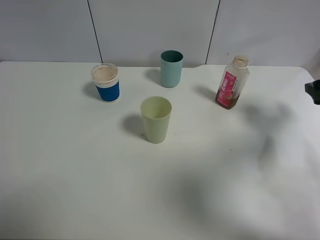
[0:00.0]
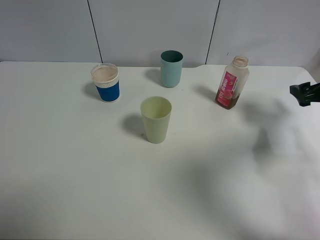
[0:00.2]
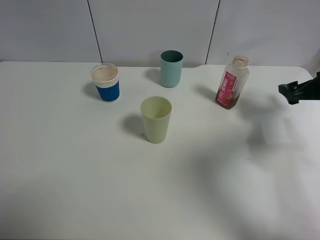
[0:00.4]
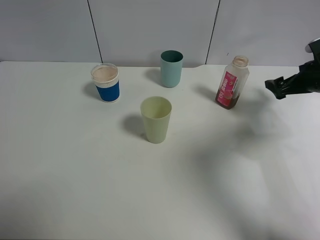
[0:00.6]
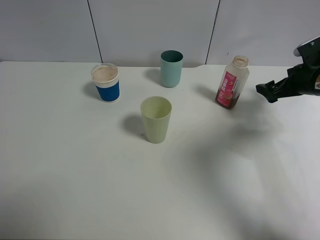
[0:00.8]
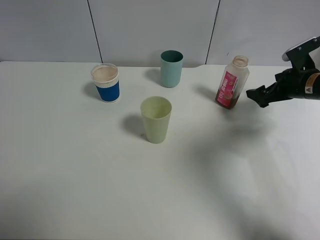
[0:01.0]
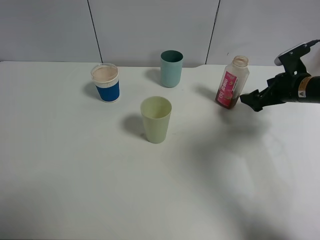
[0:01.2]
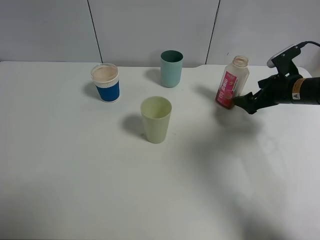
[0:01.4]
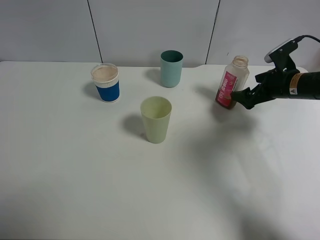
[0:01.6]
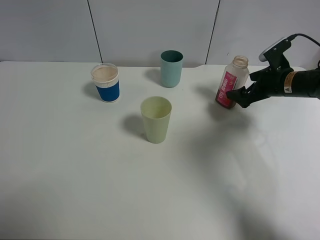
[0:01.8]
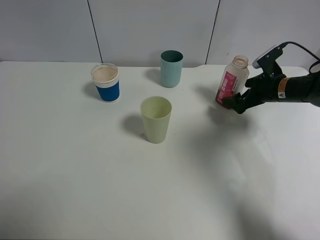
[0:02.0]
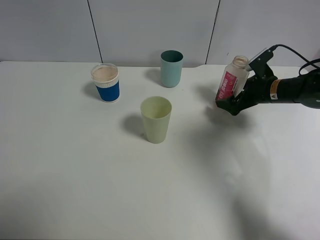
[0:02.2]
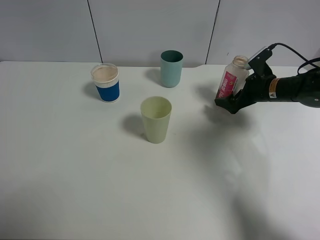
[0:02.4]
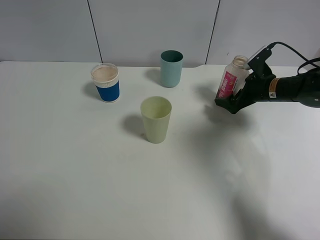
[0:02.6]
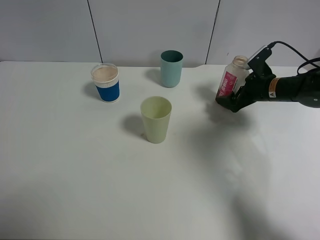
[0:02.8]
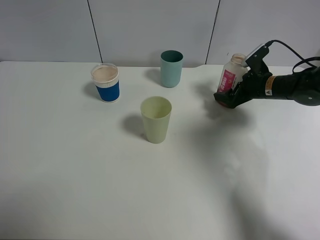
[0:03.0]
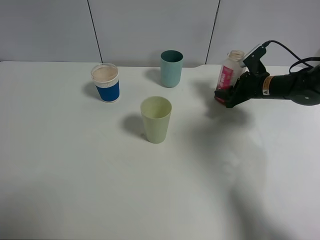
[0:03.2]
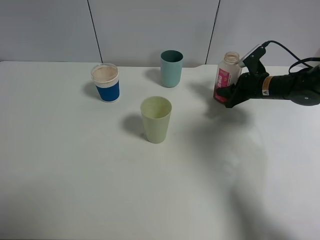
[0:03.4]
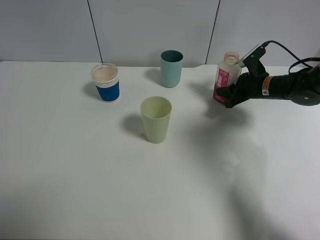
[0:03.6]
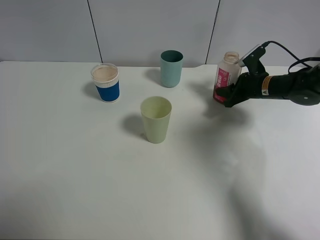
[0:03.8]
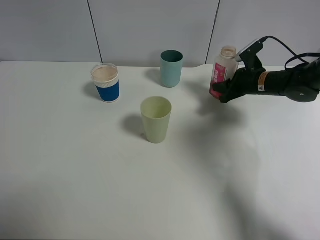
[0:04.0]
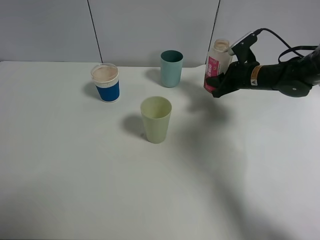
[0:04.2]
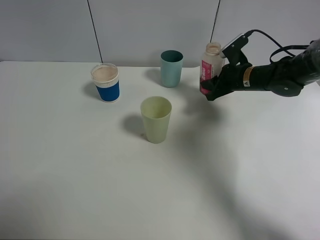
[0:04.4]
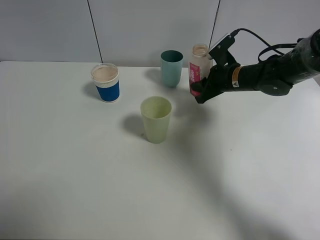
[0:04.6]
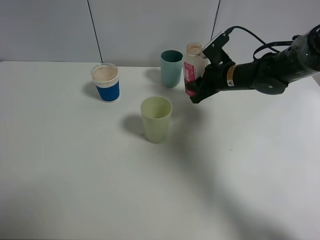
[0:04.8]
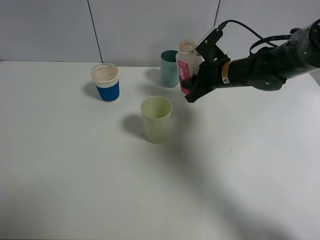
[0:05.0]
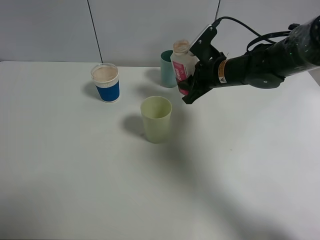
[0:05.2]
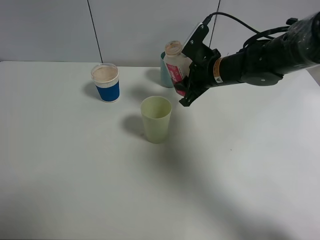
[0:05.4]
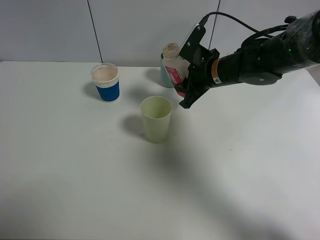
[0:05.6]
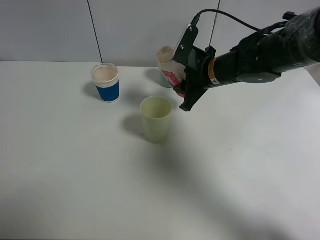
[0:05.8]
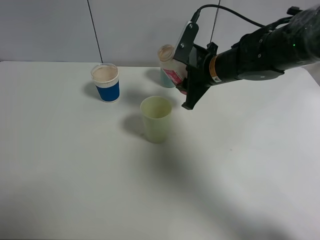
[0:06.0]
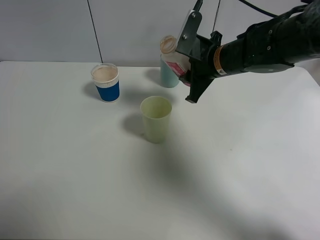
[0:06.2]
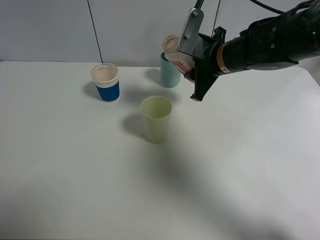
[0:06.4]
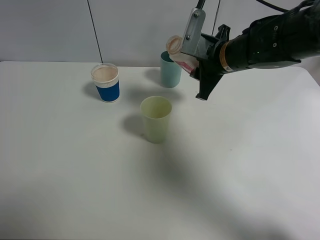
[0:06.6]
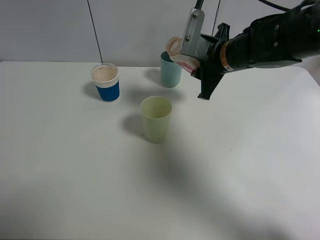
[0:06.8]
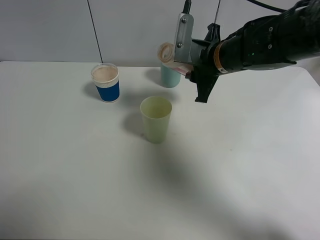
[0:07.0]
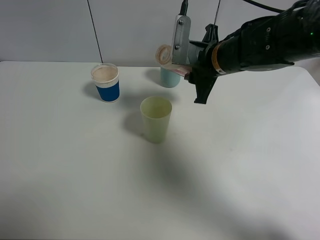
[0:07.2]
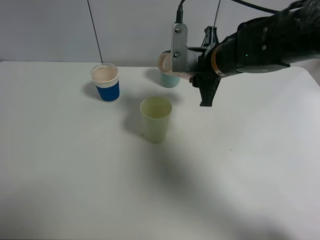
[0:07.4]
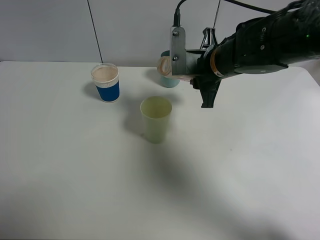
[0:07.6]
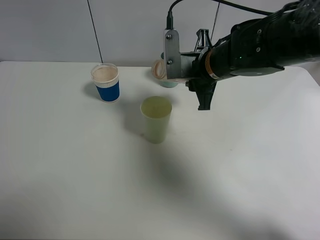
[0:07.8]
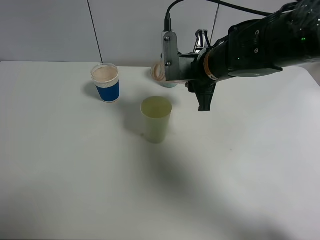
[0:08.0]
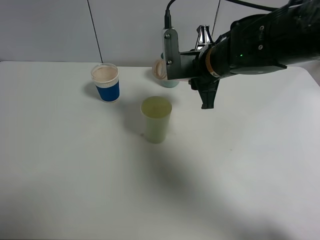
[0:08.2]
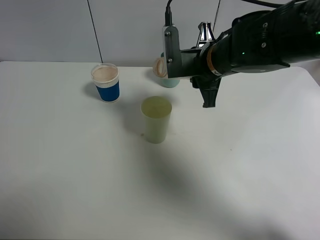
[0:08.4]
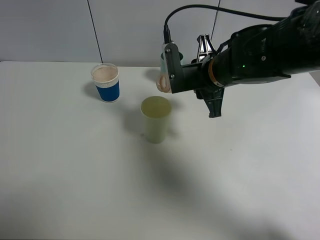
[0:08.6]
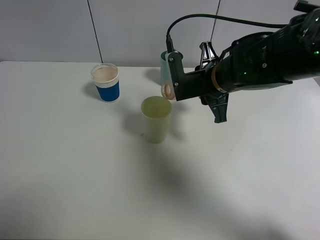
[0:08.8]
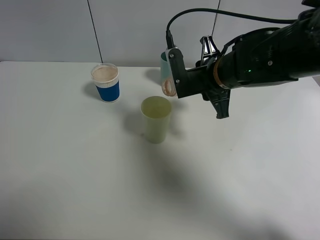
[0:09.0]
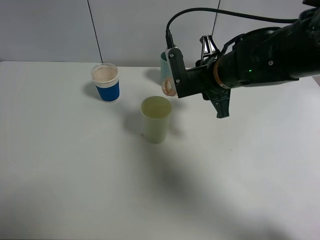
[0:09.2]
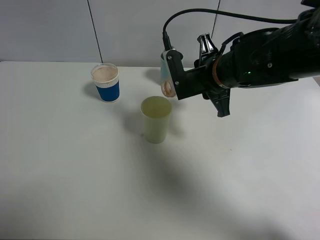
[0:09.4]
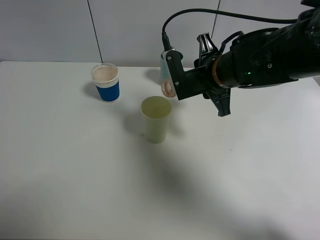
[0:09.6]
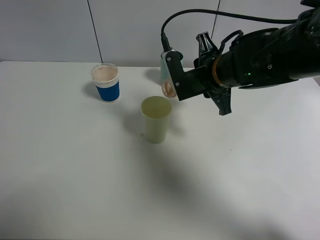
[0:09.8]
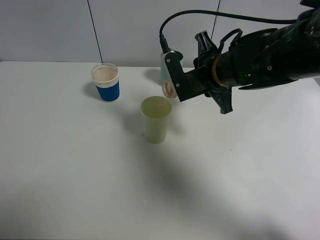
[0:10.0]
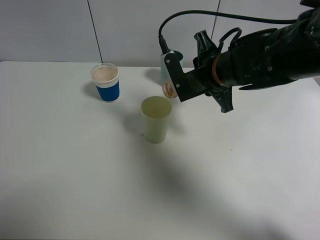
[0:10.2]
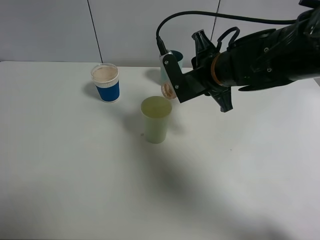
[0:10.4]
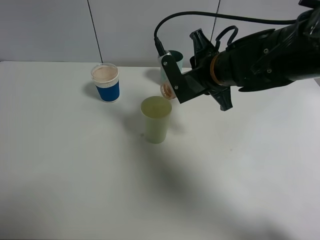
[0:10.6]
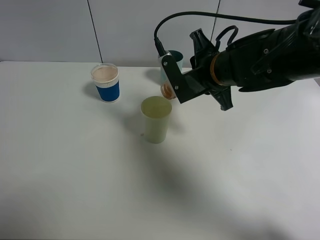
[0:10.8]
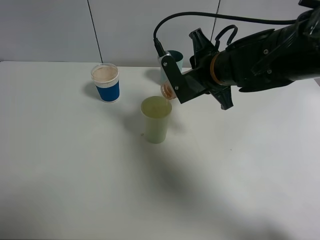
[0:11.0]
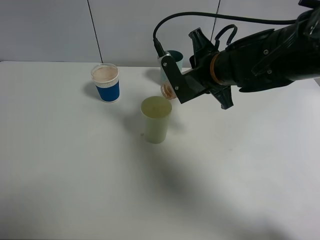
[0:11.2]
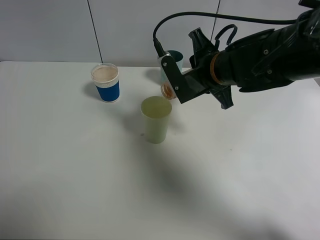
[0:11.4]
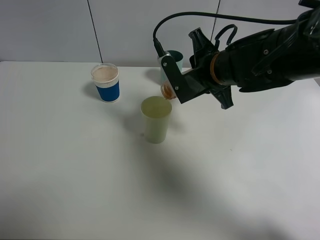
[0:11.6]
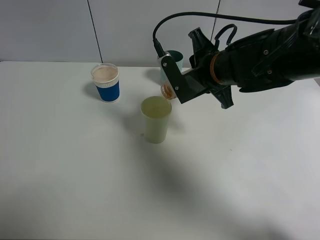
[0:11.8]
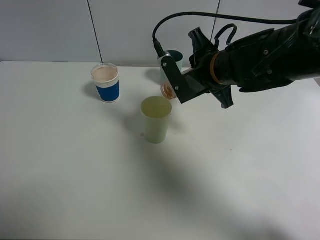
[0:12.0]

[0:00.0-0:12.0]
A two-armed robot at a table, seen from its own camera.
Task of the whole recording: use a clamp to hold the bottle of the drink, pour the beverage into a random cup, then clamp the cup containing the drink and pour the drink into another random cup.
Step, 0:00.0 to 0:04.4: Pick up the drink bottle with right gripper.
0:00.0 to 0:01.6: The right gripper goes roughly 15 cm to the left, forward and downward.
0:01.6 to 0:03.0: The right gripper ends up about 5 cm from where it was, and closes.
0:03.0 to 0:04.4: The right gripper is displaced to the left by approximately 5 cm, and closes its fingers.
0:04.4 to 0:06.0: The right gripper is displaced to the left, upward and backward by approximately 10 cm.
0:07.6 to 0:09.0: The grippers move only a little.
0:09.0 to 0:10.4: The grippers make only small movements.
0:10.4 to 0:12.0: Both grippers stay about where they are.

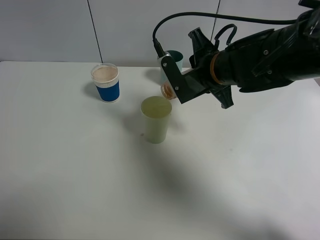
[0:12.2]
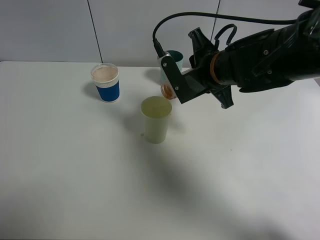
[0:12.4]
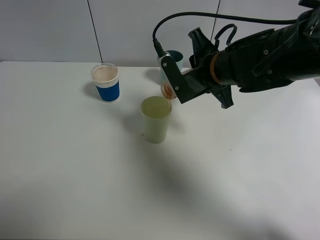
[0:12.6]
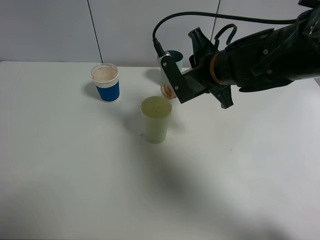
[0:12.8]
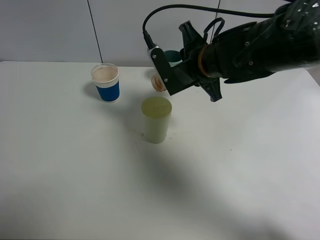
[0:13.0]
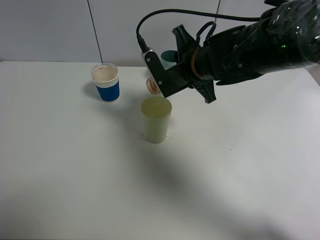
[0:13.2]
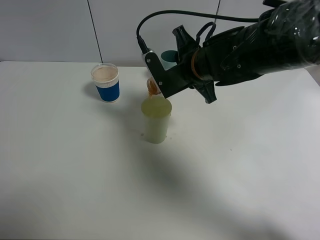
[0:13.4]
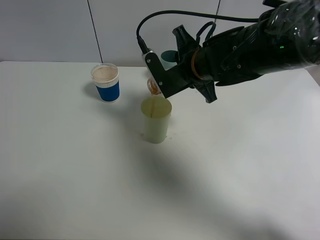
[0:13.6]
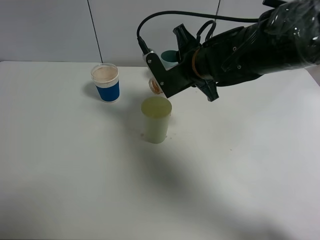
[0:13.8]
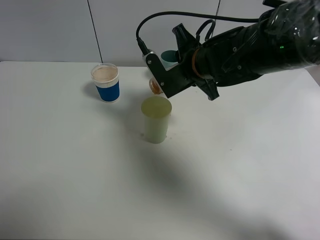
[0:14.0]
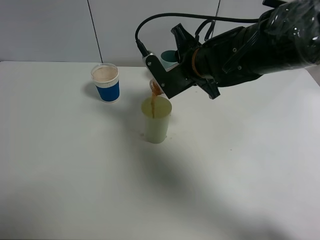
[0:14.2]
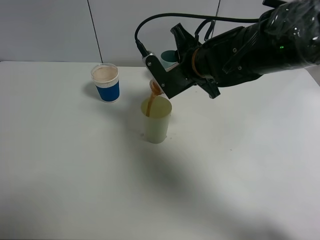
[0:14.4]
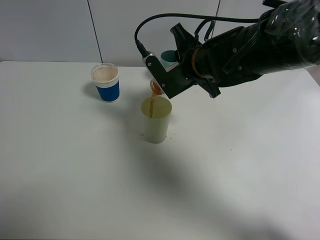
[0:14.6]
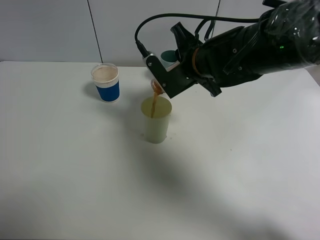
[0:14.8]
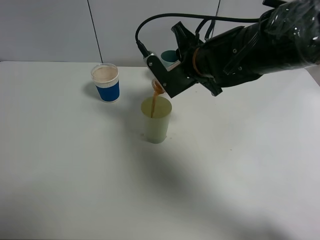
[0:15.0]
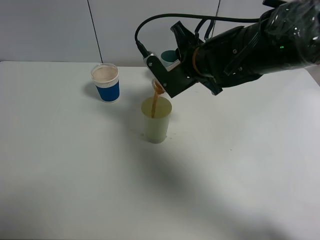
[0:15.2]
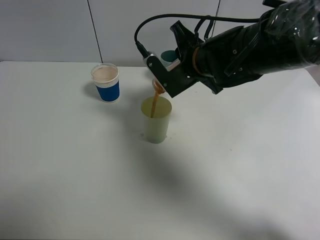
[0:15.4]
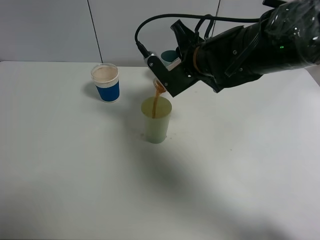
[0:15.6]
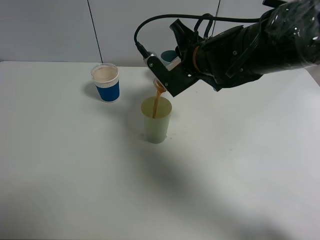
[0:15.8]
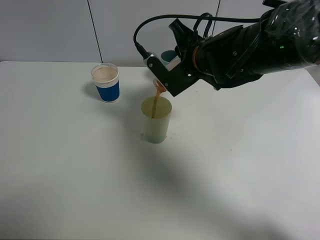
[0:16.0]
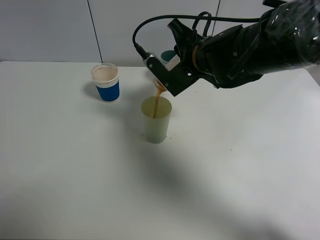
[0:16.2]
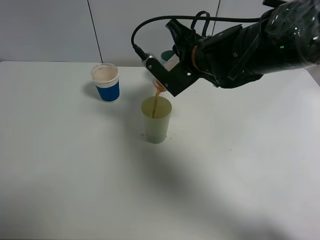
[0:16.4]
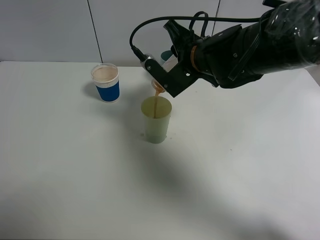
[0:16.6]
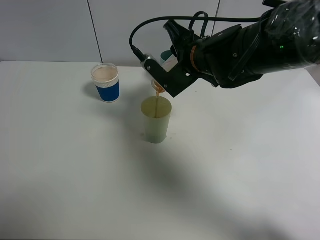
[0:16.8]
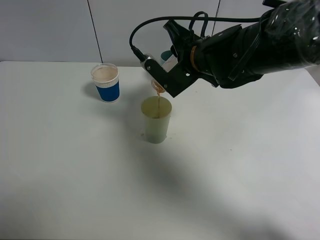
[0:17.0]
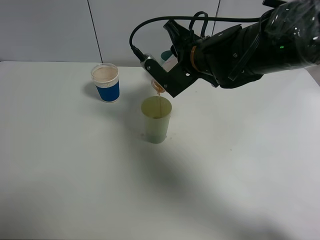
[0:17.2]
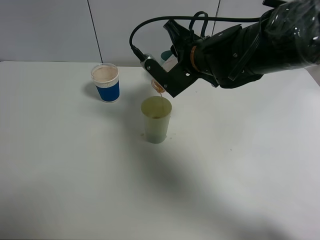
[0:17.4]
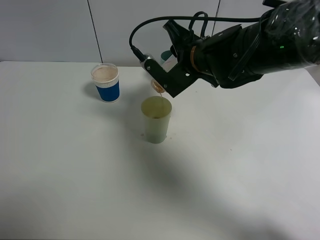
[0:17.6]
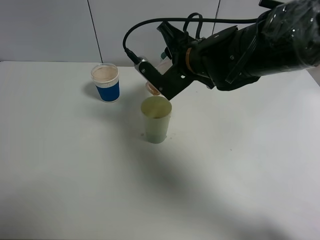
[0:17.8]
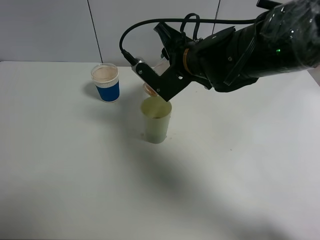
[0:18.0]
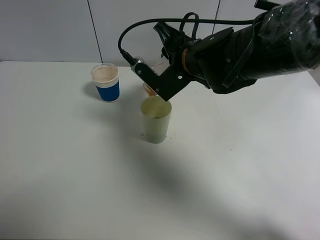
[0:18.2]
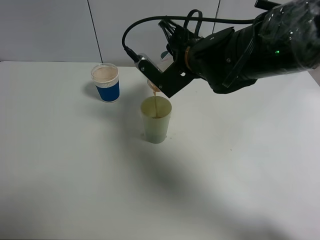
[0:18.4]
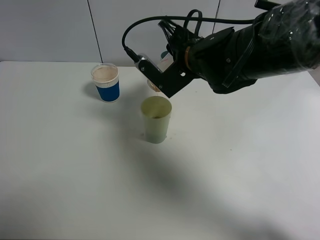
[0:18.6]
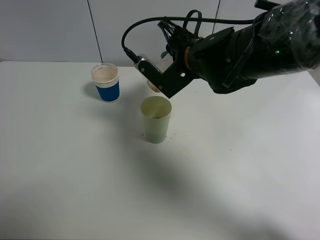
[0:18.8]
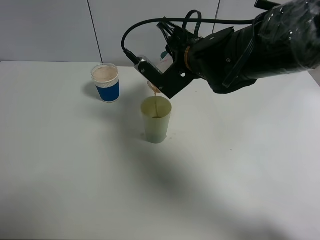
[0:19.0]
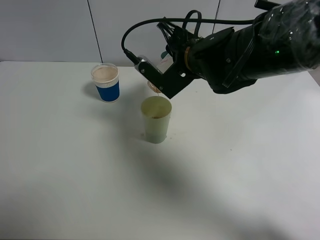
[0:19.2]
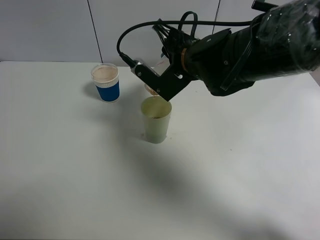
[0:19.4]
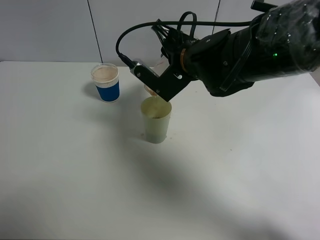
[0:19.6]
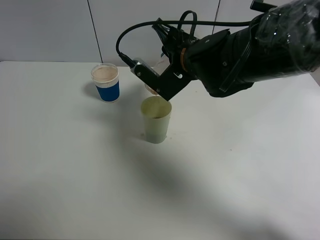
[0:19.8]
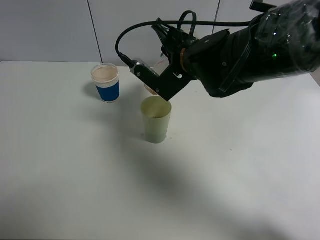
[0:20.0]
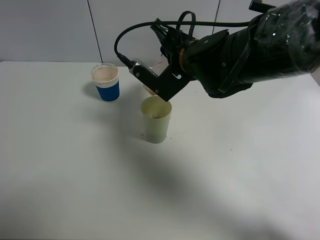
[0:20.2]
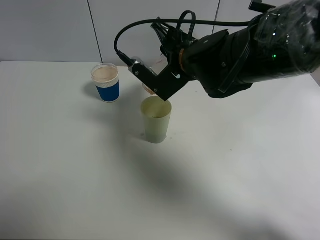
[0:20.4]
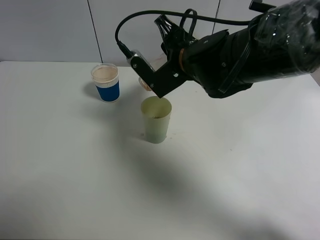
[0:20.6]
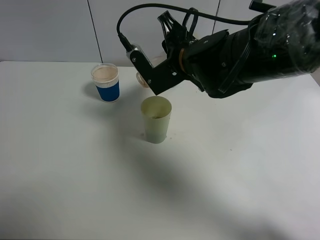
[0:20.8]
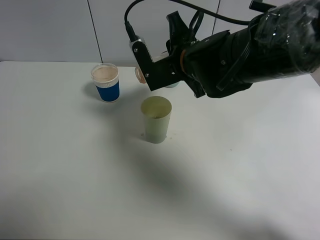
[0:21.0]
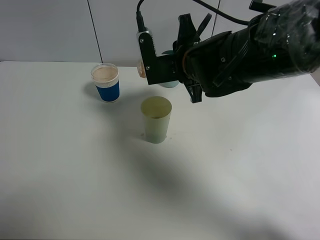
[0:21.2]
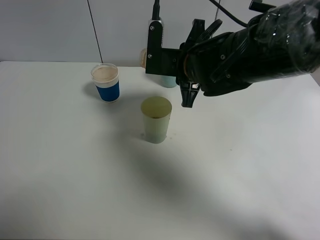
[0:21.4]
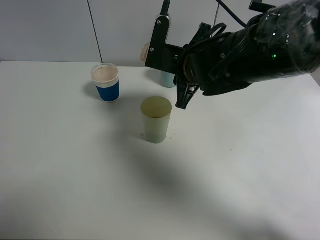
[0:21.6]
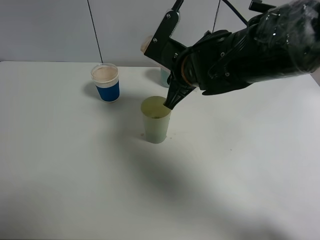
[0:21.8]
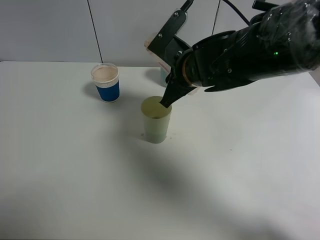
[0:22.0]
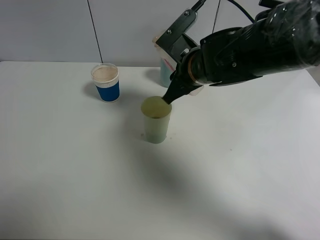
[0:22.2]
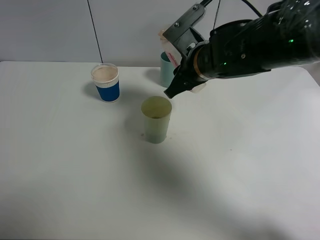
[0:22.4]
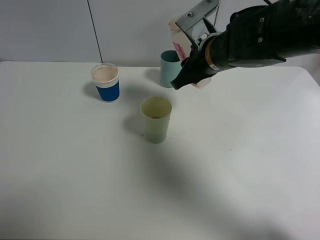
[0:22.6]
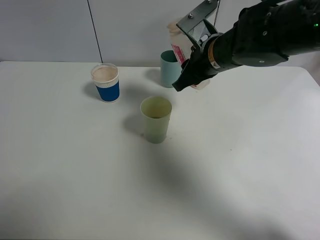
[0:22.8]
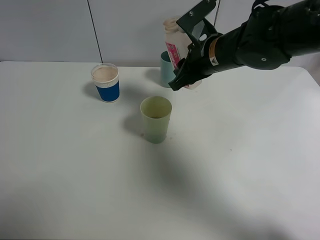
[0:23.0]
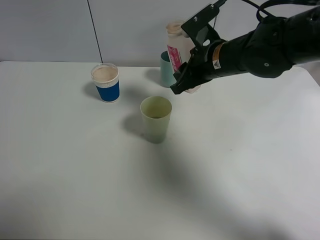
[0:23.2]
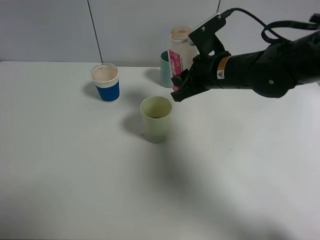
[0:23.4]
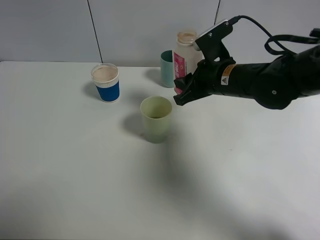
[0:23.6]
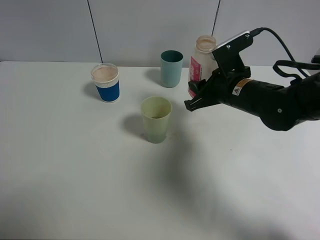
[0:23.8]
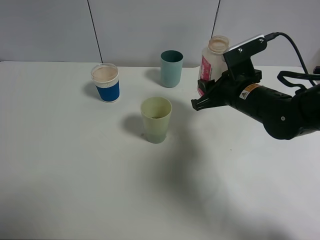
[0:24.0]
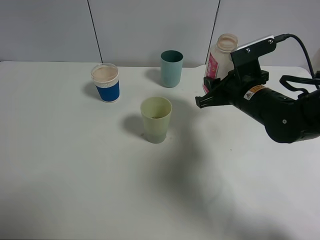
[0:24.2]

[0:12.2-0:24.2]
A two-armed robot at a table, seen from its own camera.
Task of the whole recording: use a clamp to hold the bottle of the drink, pour the beverage into a random cup, then clamp the cup containing the drink and pour the drink into another random cup.
Step, 0:12.2 to 0:21.4: Pour the drink into the green plastic cup with right gripper.
0:12.2 to 0:16.6: The grippers make only small movements.
0:16.6 to 0:18.2: The grippers move only a little.
0:18.2 to 0:19.8: Neither gripper changes place.
0:22.6 to 0:24.2: The right gripper moves to the right and downward, about 10 cm.
